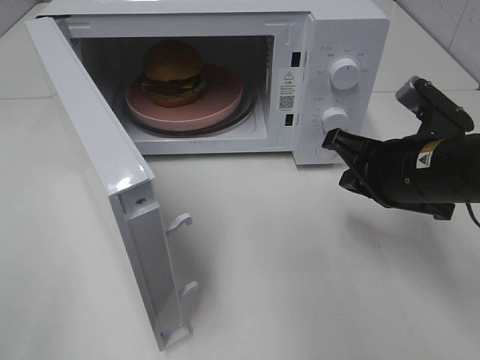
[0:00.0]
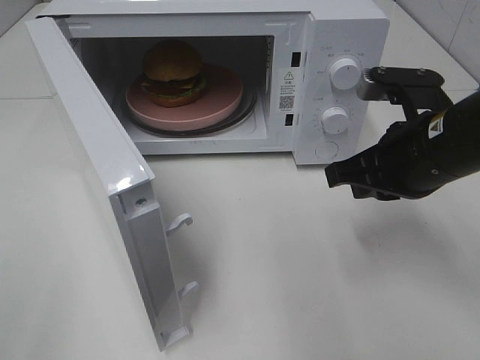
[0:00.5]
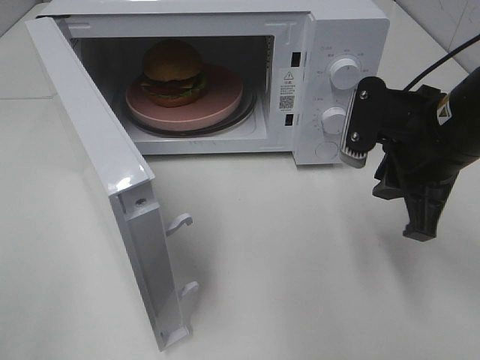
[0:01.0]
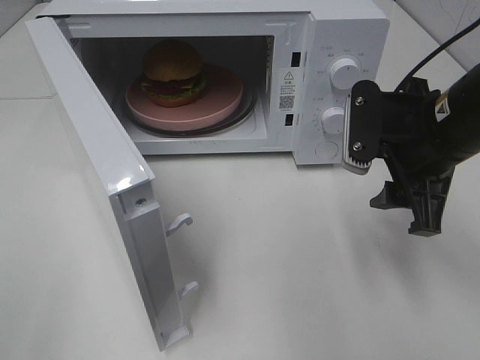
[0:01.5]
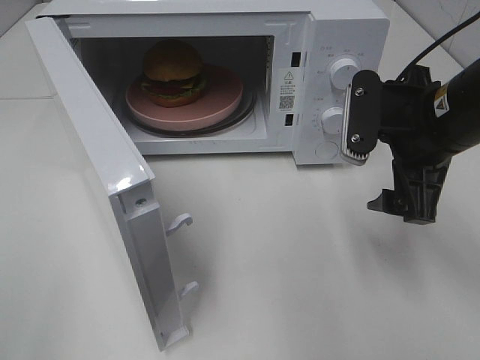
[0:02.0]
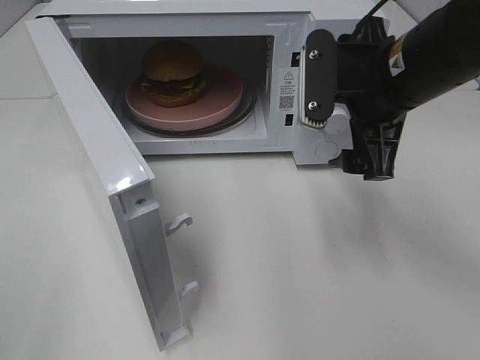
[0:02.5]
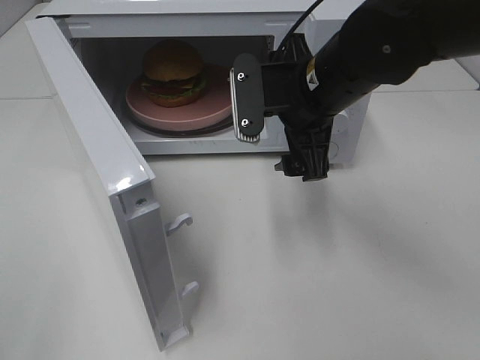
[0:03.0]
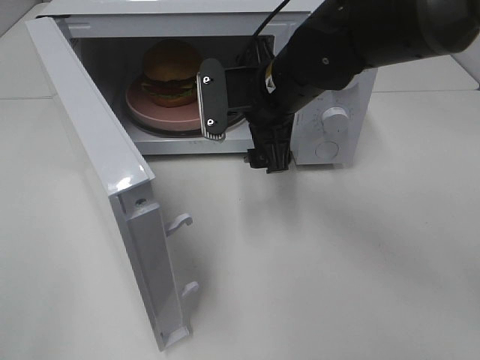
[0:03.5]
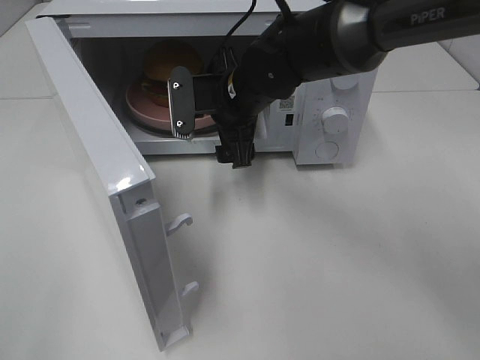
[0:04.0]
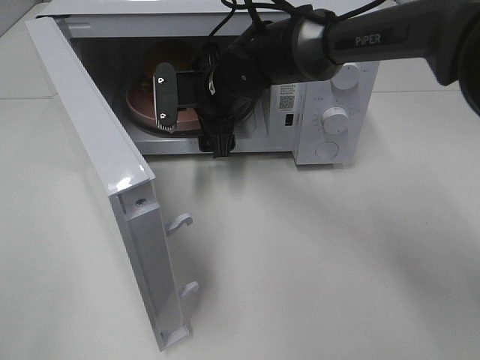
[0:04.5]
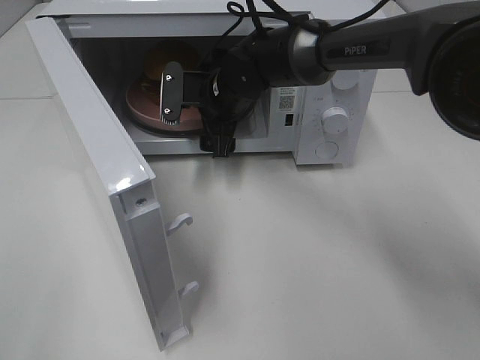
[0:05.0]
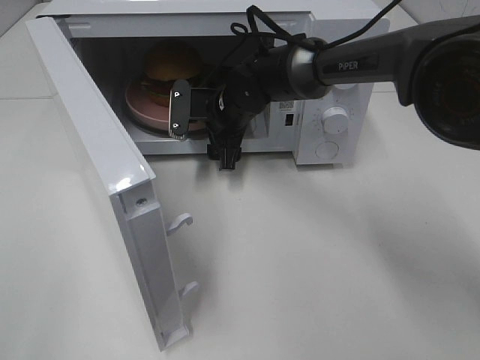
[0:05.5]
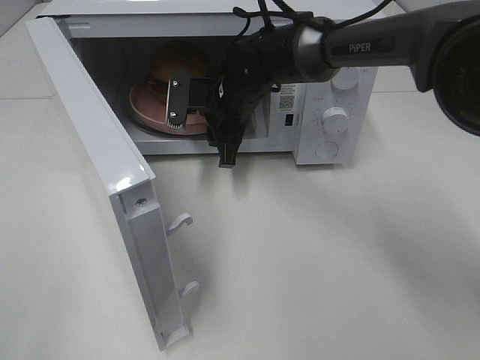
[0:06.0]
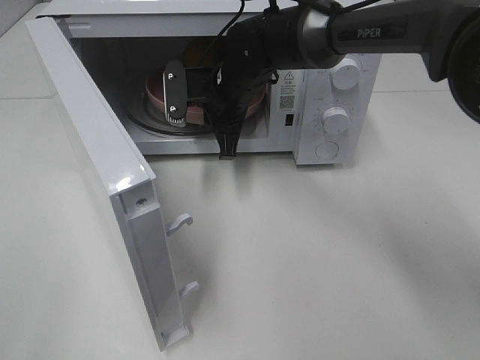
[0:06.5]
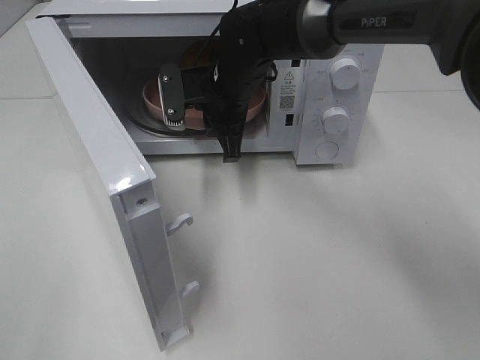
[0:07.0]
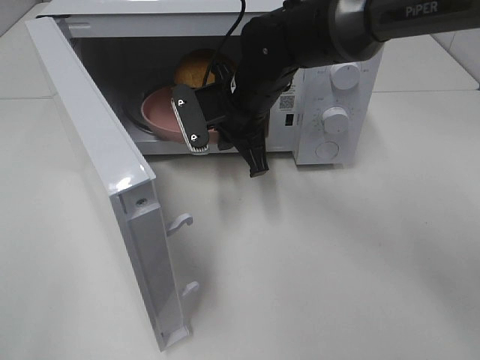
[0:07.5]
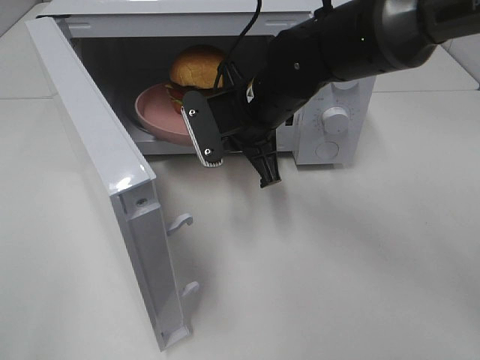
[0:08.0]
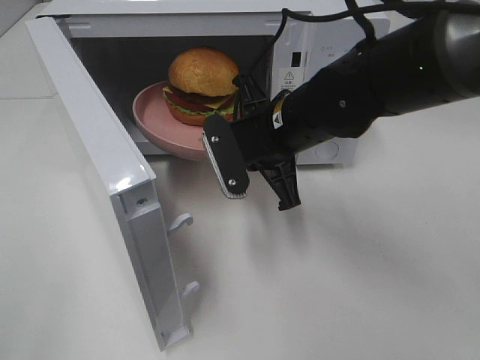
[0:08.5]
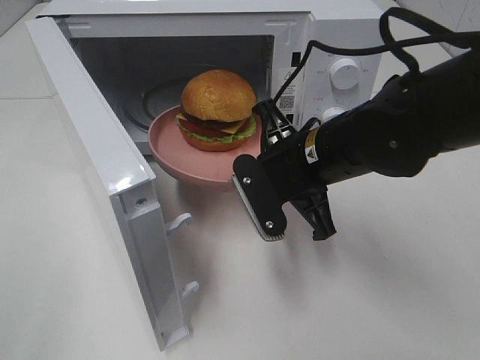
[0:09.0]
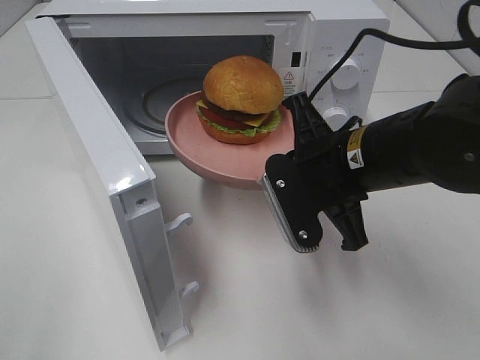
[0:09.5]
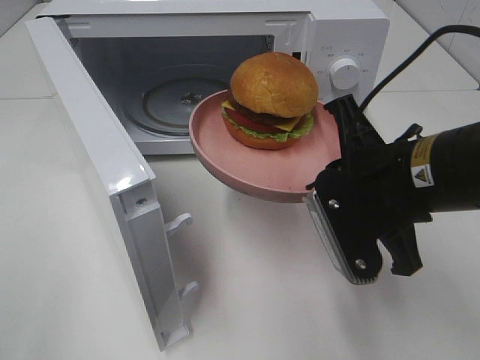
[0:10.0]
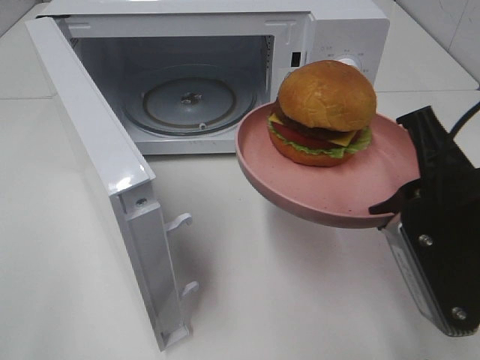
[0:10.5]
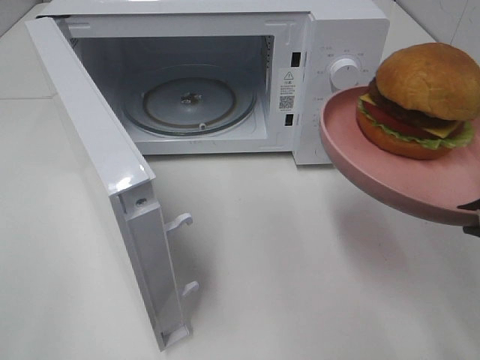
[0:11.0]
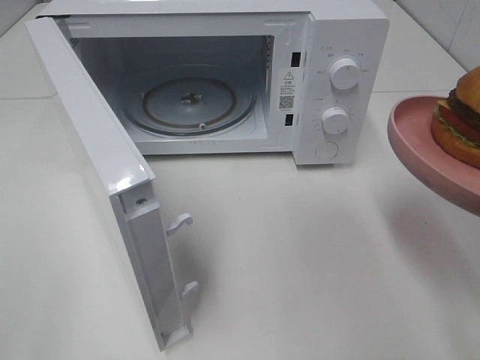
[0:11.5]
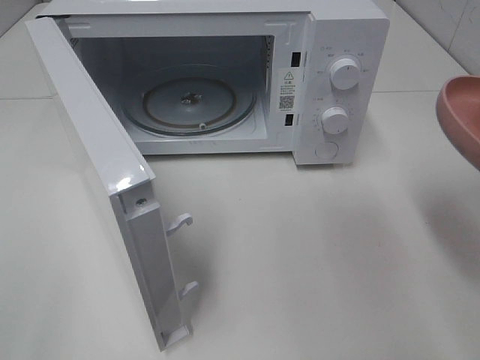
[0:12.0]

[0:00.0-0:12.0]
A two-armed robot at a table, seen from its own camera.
Task of the whole recording: Heat the burger.
Step, 0:00.0 to 0:06.0: Right hand: grab the plate with the hamburger.
0:00.0 to 0:02.0: The right gripper travels upward by about 5 cm, and opens up.
0:02.0 to 0:04.0: The right gripper shifts approximately 20 cm to the left and forward.
0:04.0 to 0:06.0: The right gripper shifts by about 5 cm, and closes up.
0:06.0 to 0:08.0: The right gripper heads backward, covering approximately 10 cm.
0:08.0 to 0:10.0: The right gripper shifts some 20 cm backward and to the right.
0:10.0 to 0:12.0: The right gripper goes approximately 15 cm to the right and backward.

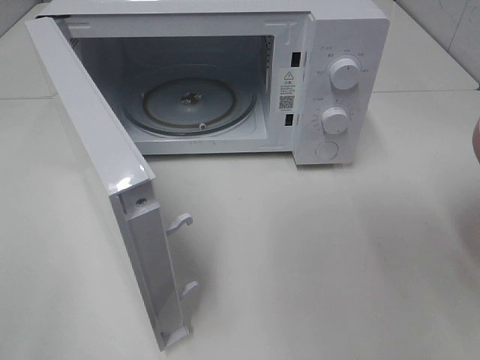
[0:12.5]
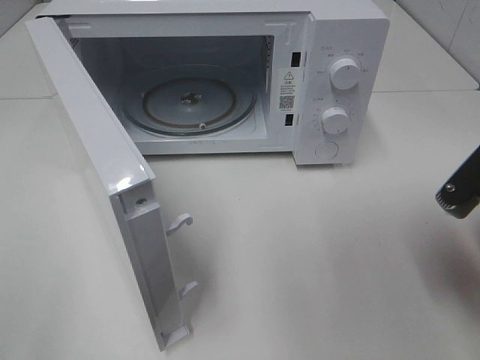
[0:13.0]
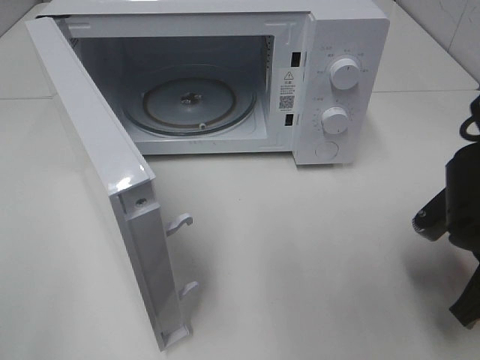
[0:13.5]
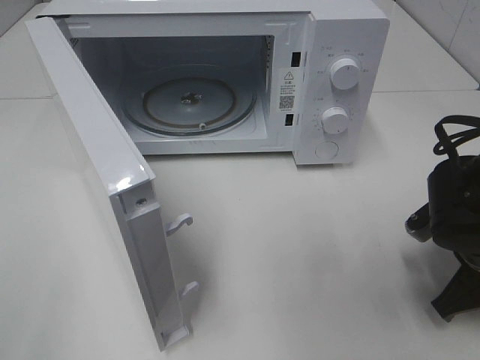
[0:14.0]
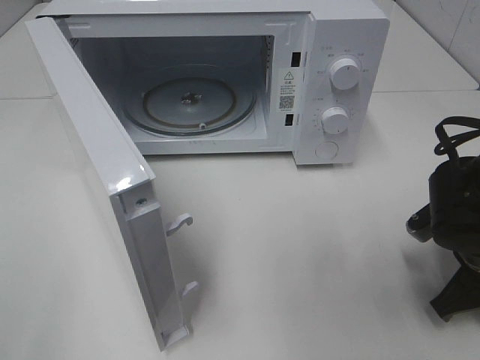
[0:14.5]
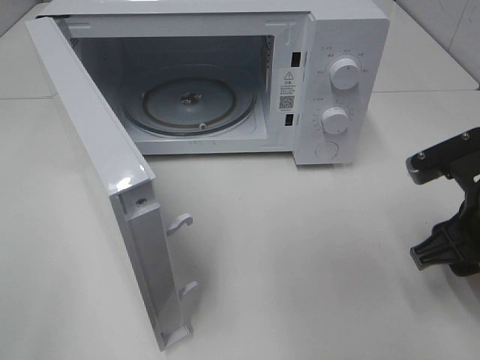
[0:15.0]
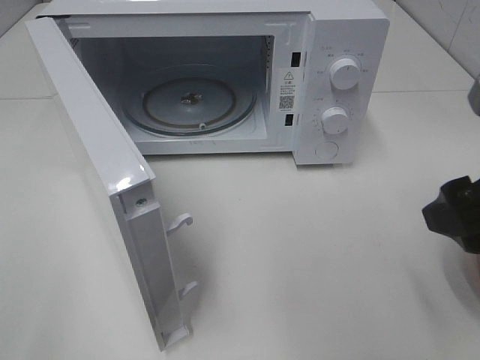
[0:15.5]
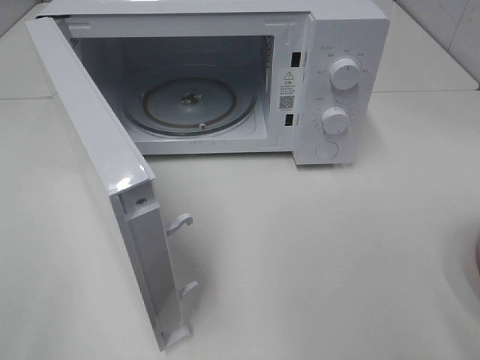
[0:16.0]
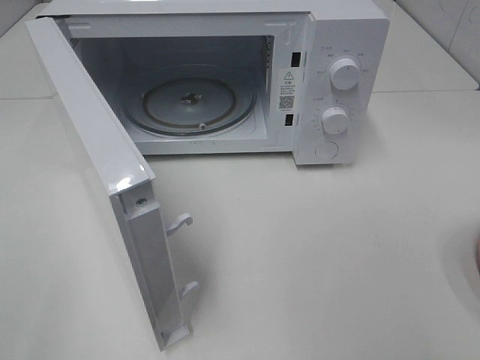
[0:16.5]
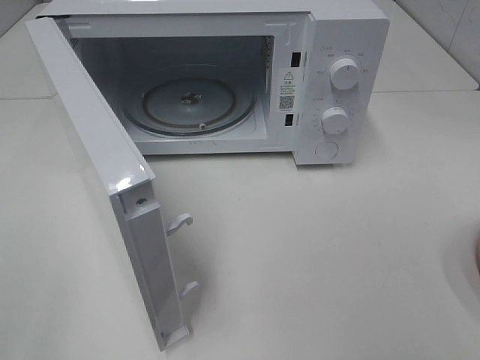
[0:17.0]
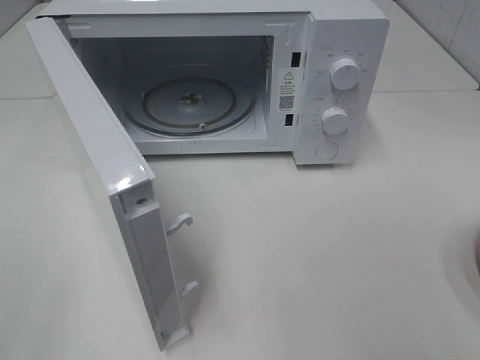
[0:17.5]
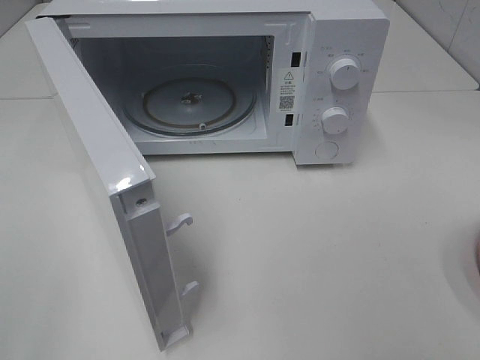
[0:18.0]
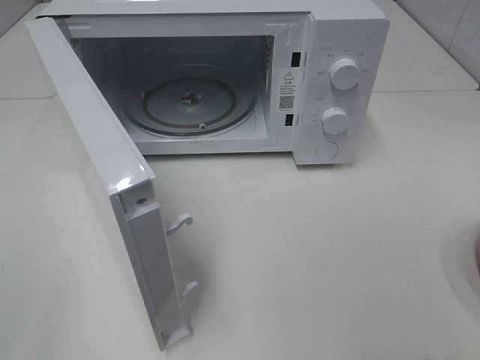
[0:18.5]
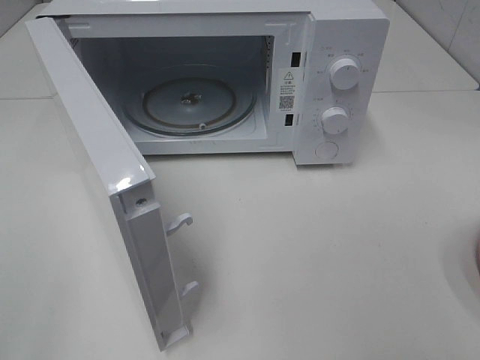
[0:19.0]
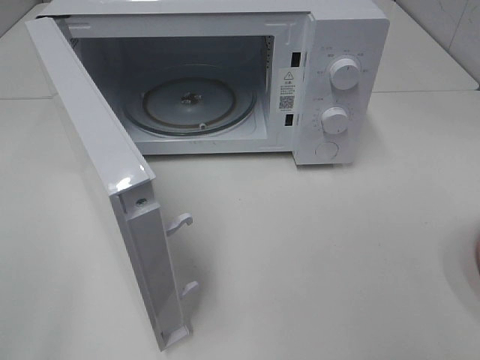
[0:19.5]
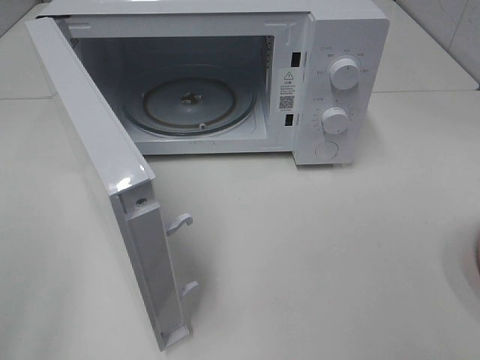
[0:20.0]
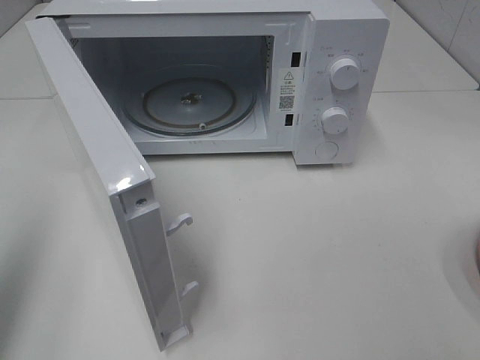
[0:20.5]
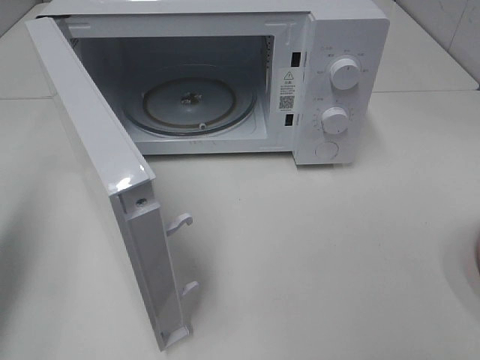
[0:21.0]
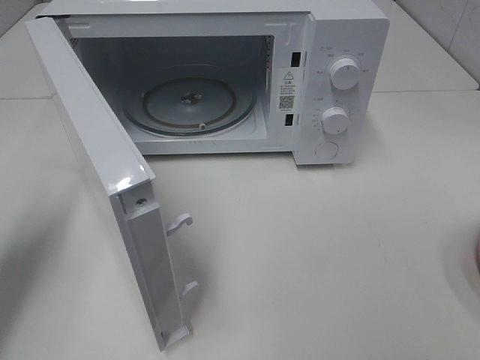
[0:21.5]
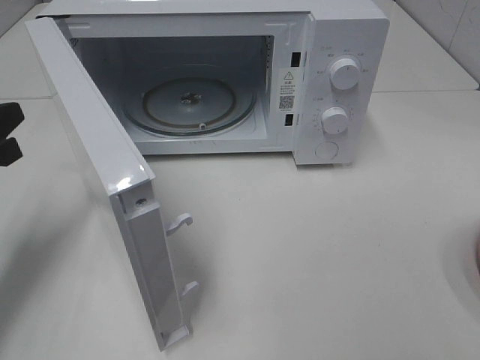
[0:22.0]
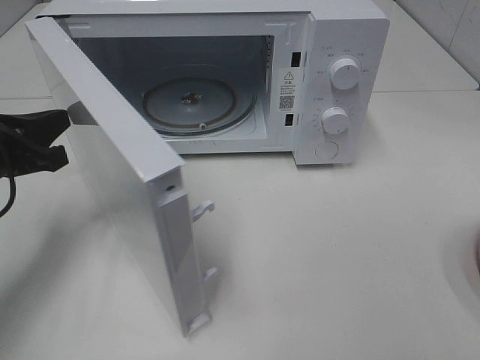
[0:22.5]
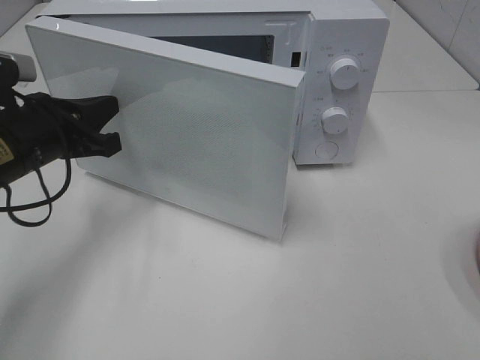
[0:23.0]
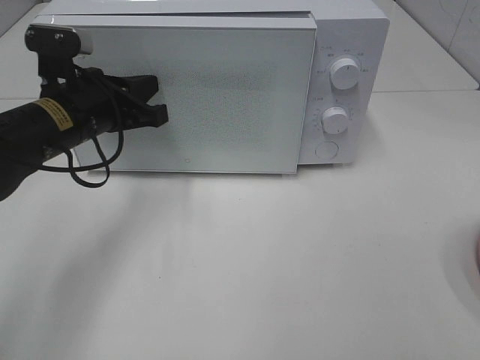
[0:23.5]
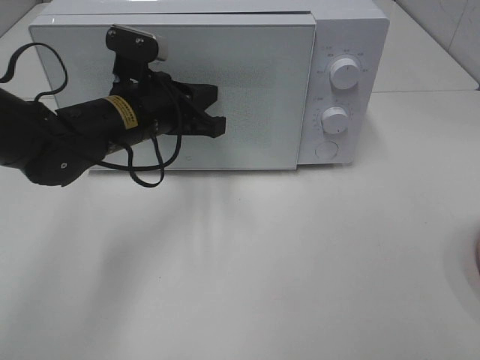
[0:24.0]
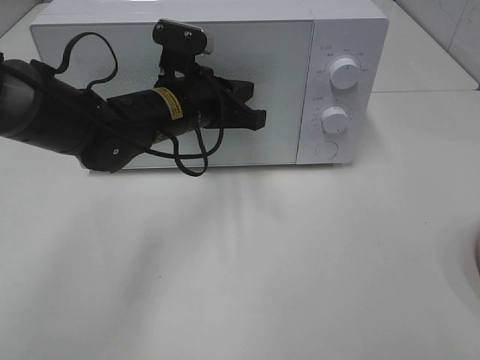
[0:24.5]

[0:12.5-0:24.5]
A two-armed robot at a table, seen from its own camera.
Task of the whole recording: Heat the burger.
Step, 0:12.5 to 0:14.5: Right hand: place the plate on the table.
0:12.5 to 0:14.5: The right gripper is displaced downward and forward by approximately 15 cm.
0:14.5 to 0:16.5: The right gripper goes about 30 cm upward and backward, and opens up.
0:18.5 to 0:20.5: The left gripper is displaced forward by approximately 15 cm, and closes up.
0:20.5 to 0:22.5: The left gripper is displaced downward and forward by roughly 20 cm.
0:22.5 to 0:24.5: The left gripper moves to the right and forward, some 20 cm.

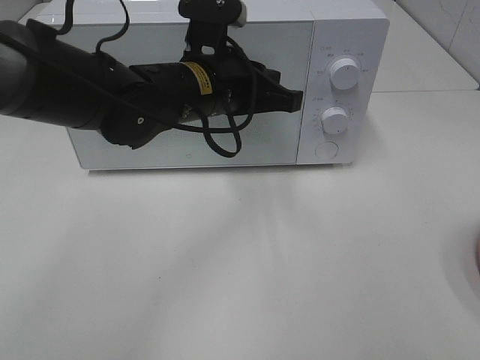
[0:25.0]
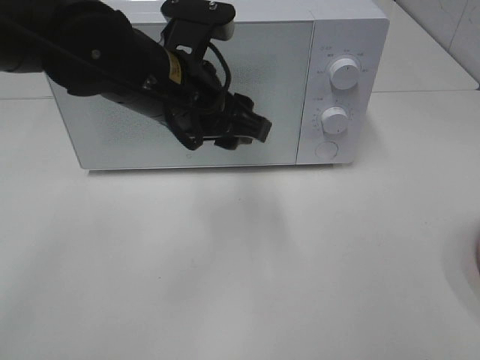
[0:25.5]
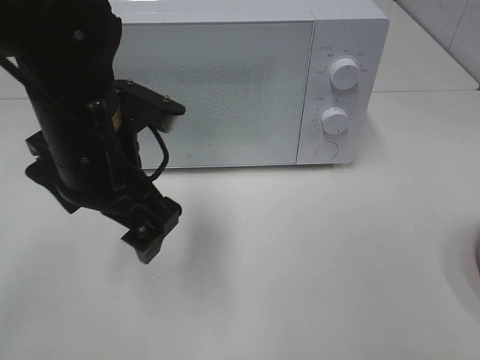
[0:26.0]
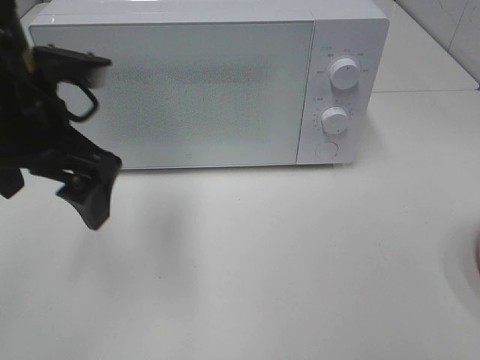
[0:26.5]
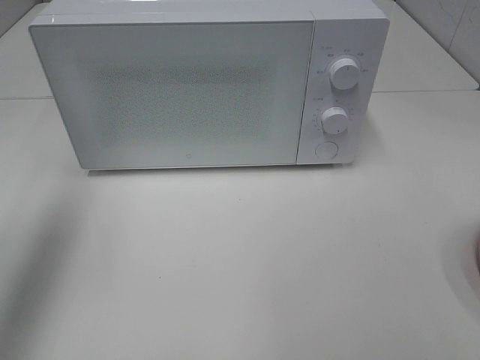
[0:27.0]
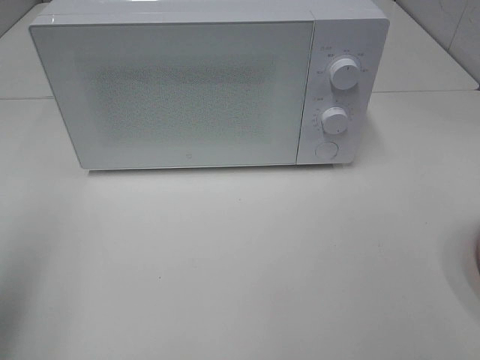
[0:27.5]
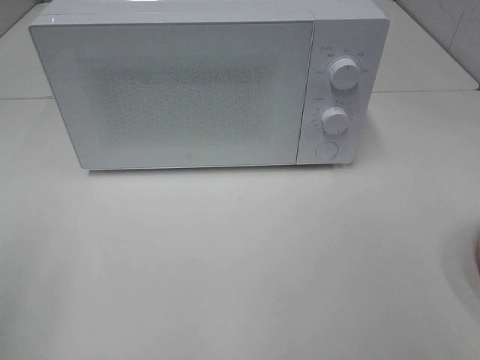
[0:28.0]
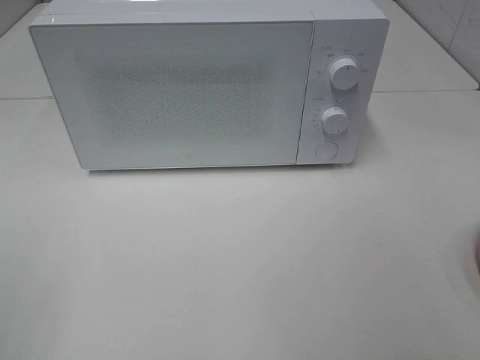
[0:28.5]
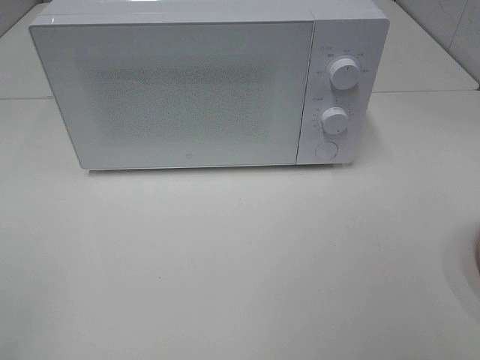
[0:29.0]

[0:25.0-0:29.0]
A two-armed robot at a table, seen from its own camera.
Task of the whole recording: Heat the burger.
0:25.0 to 0:27.0: The left gripper moves to the left and upward, approximately 30 cm, and opens.
0:27.0 to 0:29.0: The left gripper is displaced backward by approximately 25 cm.
